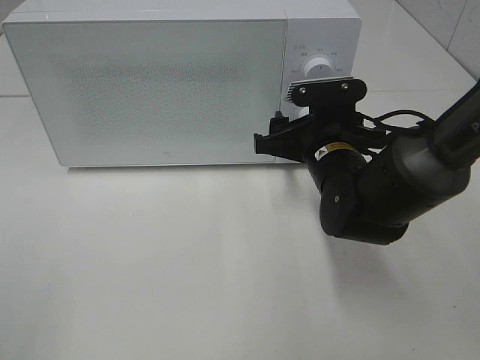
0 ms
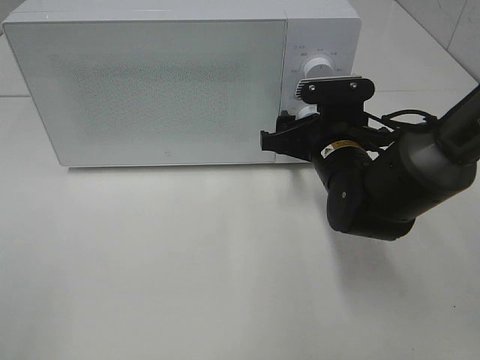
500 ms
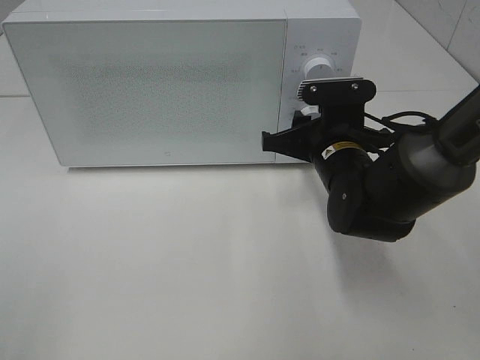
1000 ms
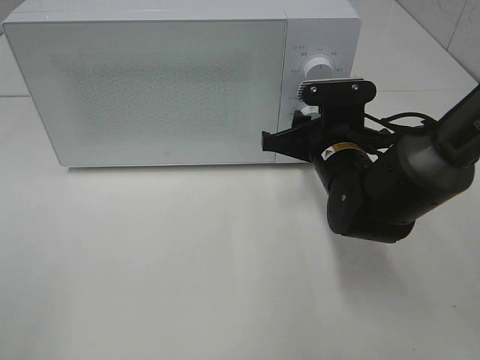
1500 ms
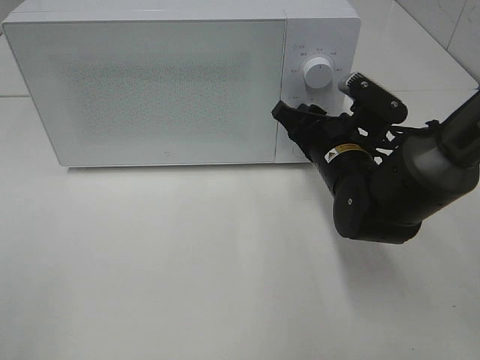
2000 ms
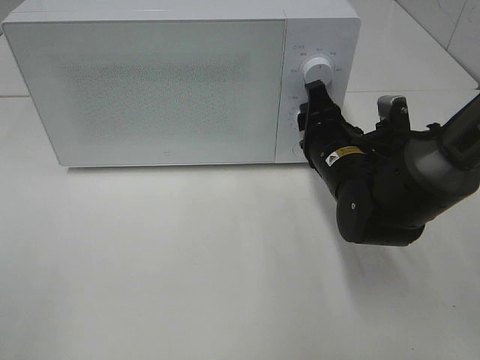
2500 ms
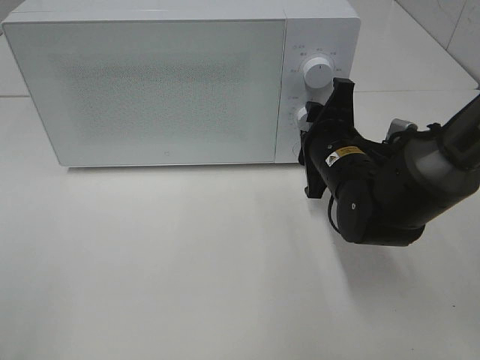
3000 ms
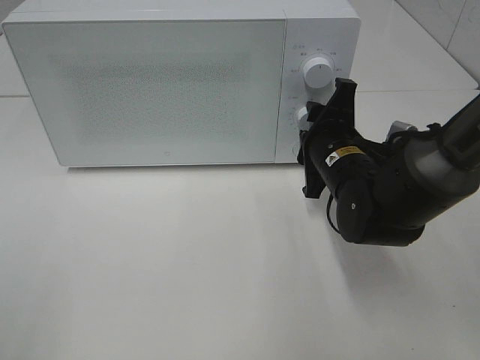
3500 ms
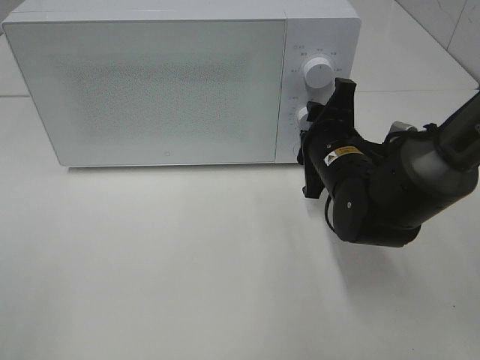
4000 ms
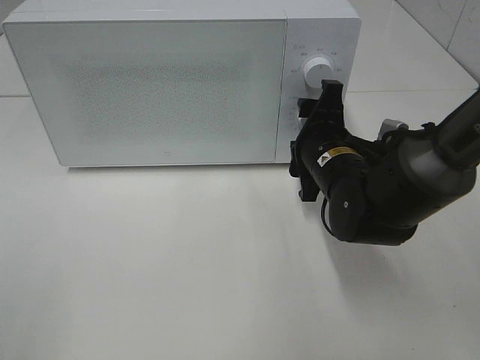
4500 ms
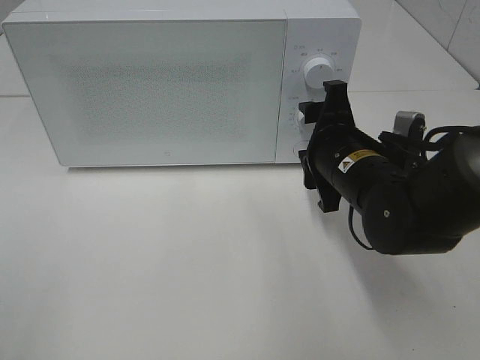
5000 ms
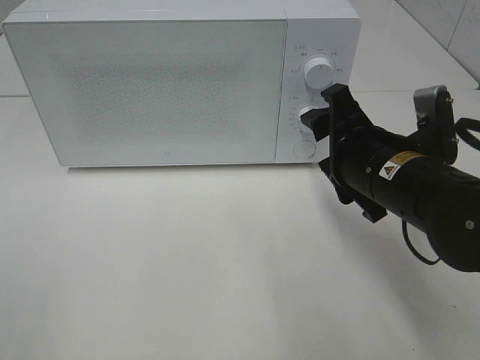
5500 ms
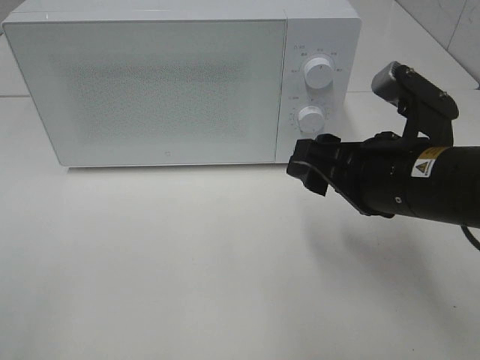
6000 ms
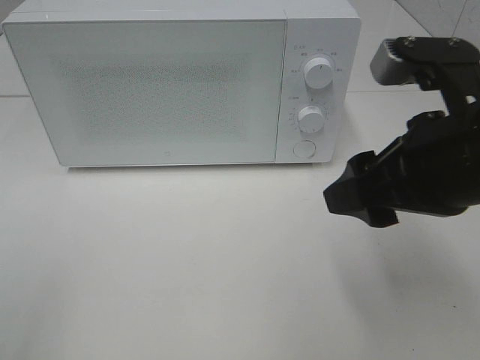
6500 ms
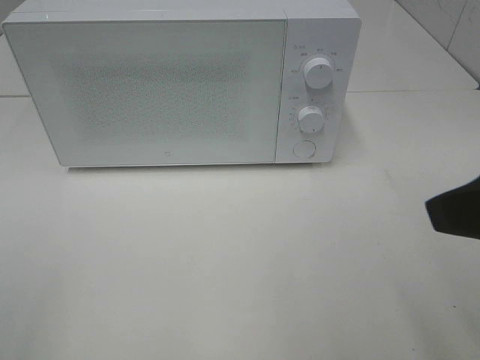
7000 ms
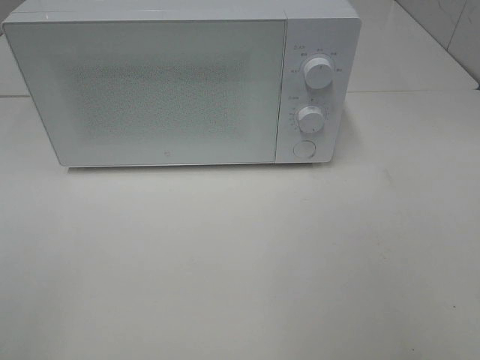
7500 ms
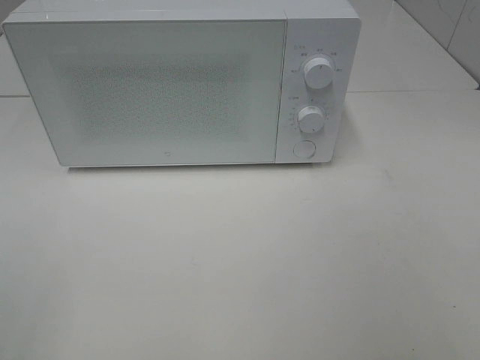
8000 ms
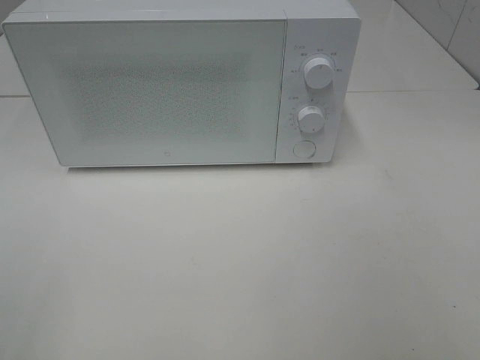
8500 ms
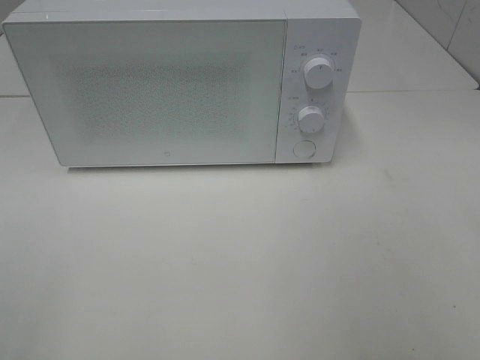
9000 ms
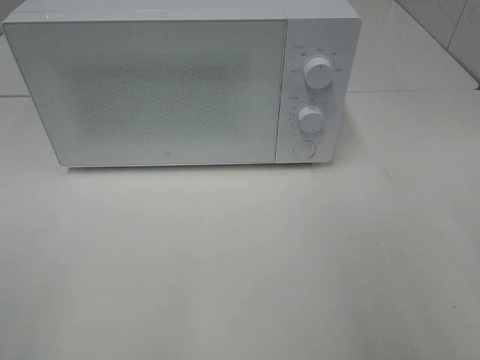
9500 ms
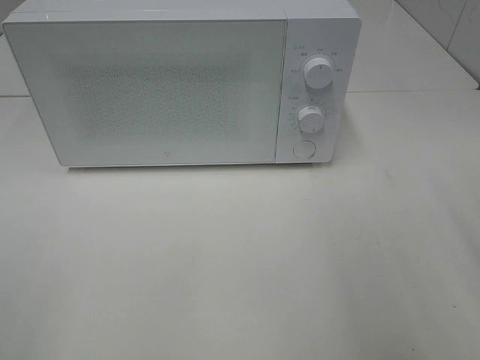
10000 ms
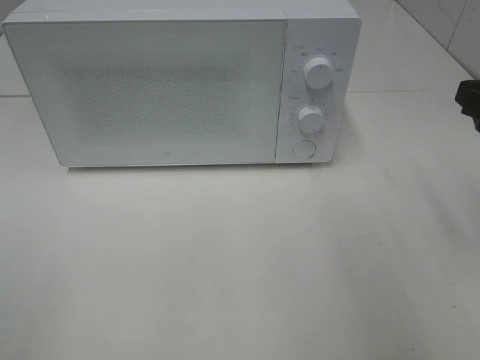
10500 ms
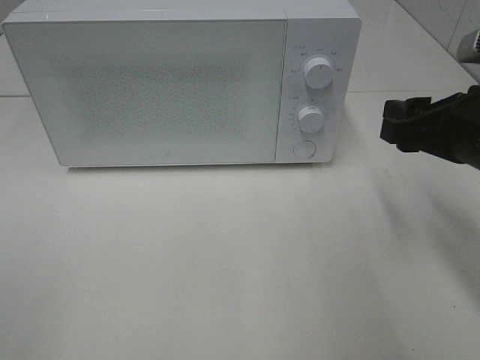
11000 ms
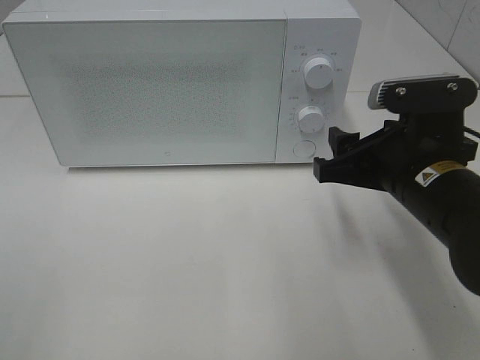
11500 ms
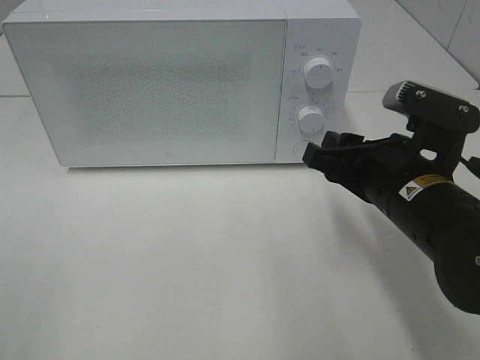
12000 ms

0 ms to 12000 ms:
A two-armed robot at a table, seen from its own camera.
Task of the whole recording: Heat the burger.
Step, 0 ms to 4000 ms: Right hand: twist timer button.
0 ms to 2000 ms: The right gripper closes.
4000 ms to 6000 ms: The right gripper travels backward and upward by roughly 15 cm.
6000 ms to 8000 ms: The right gripper is displaced backward, to the right and upward by some 25 cm.
10000 ms to 12000 ms: The right gripper goes about 20 cm to the left, downward and forward.

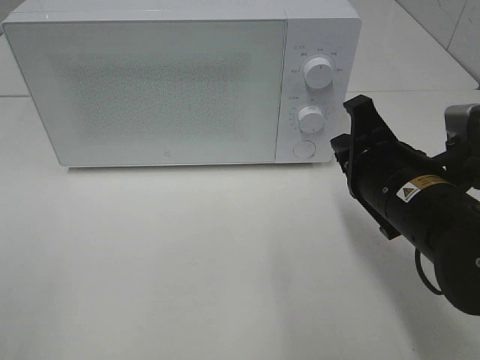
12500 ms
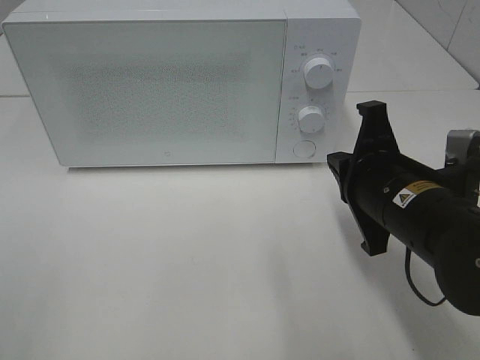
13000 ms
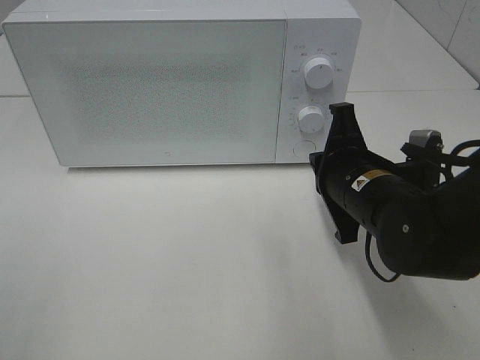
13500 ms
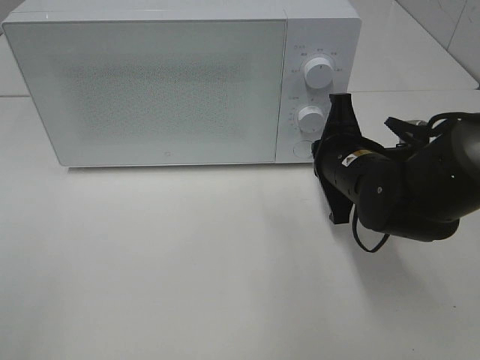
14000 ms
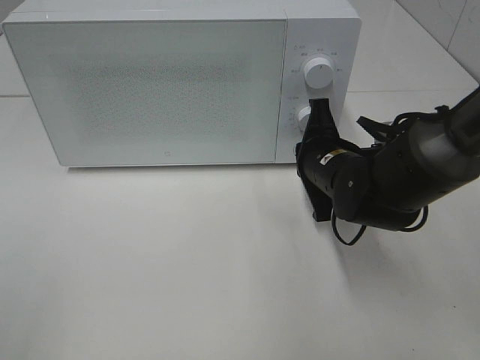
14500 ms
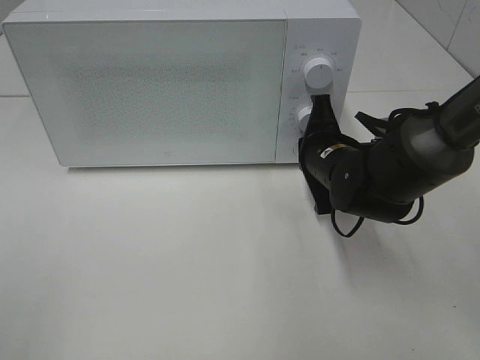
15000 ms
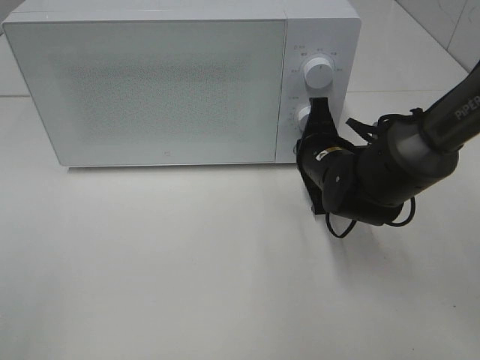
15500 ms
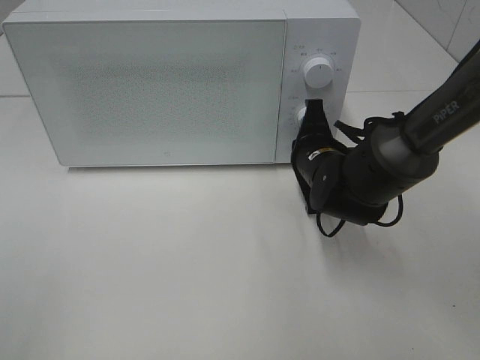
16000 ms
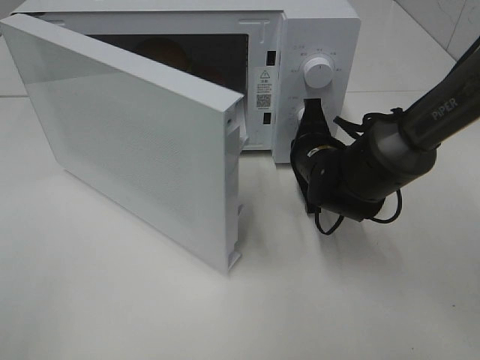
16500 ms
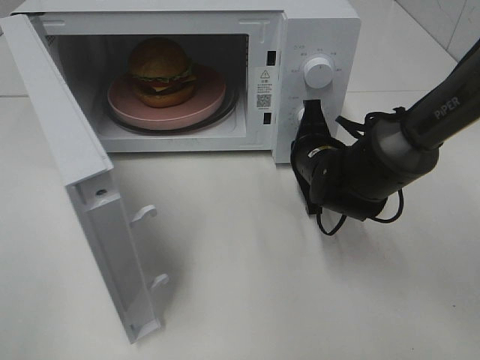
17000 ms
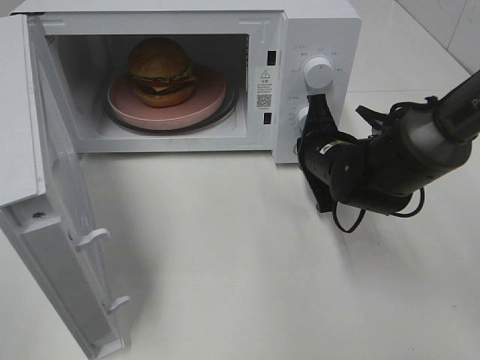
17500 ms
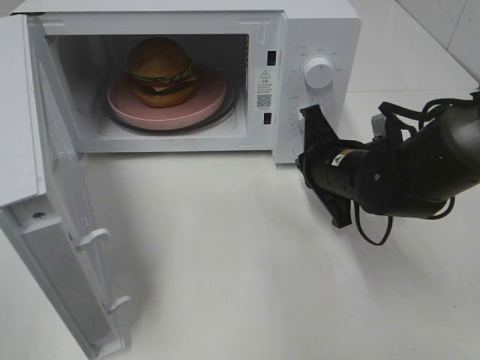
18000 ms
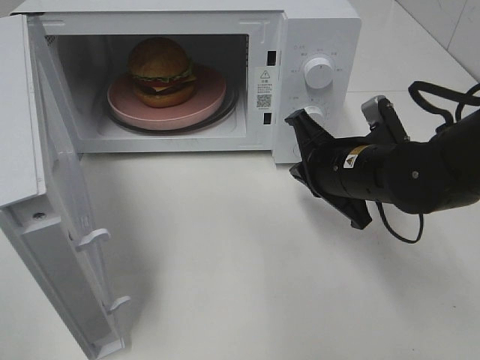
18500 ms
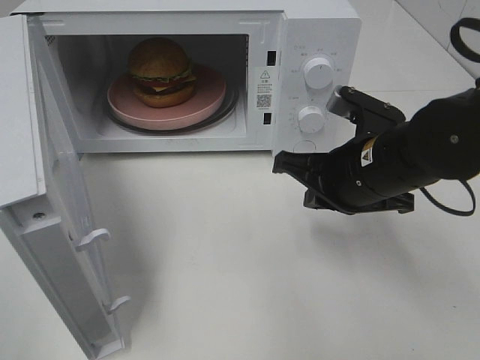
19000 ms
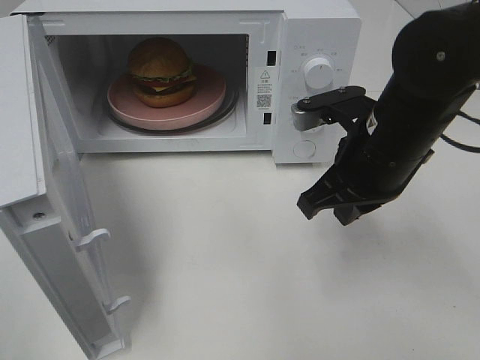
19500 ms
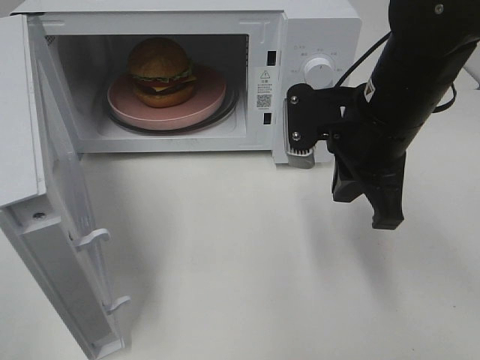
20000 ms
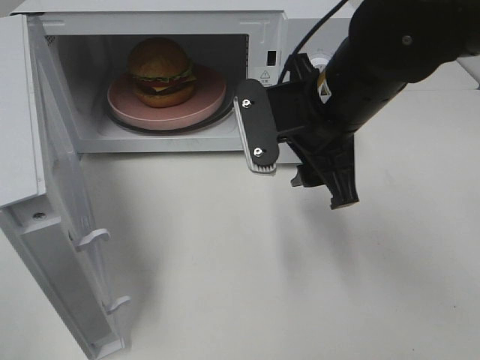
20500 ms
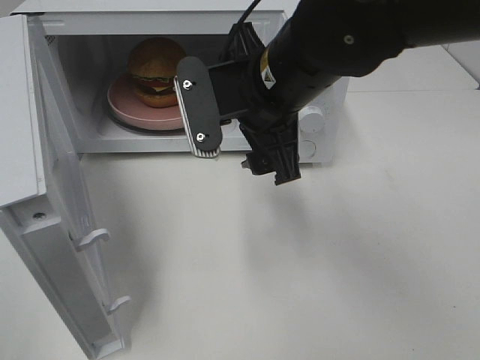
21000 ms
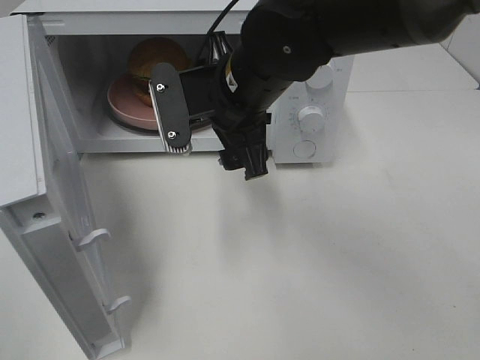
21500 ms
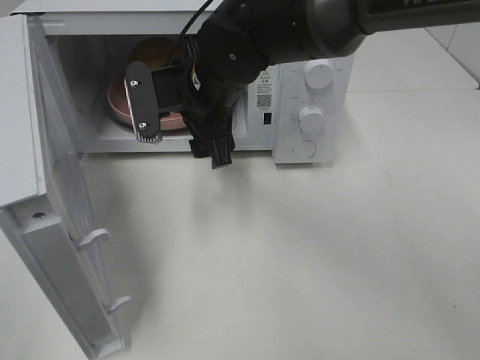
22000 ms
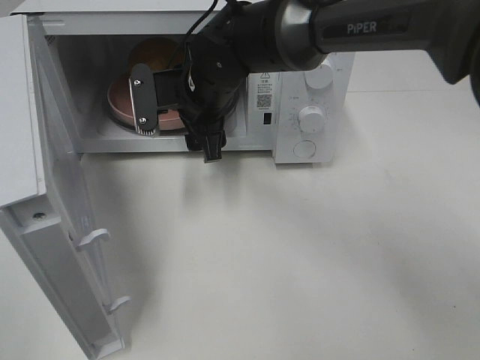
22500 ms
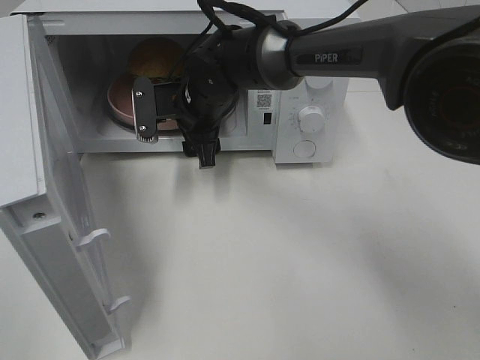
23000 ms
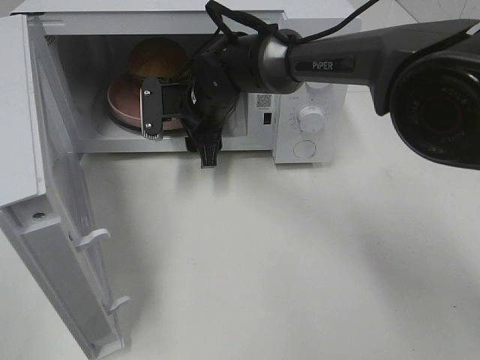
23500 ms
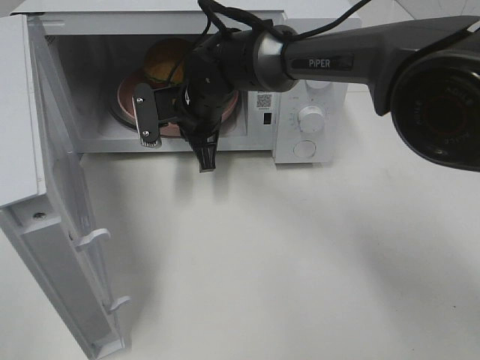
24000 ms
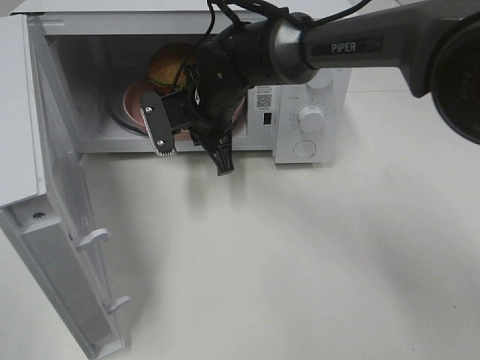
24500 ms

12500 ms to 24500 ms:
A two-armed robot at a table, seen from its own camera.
Task of the whole recording: Heat the burger.
Step, 12500 ms to 17500 ms: Right hand: press the switch.
Step, 18000 ms to 23500 ms: Right hand: grab the plate with the hamburger.
12500 ms to 14500 ms: The right gripper moves forward and downward, about 10 cm.
16500 ms to 18500 ms: The right gripper goes approximately 5 cm backward.
18500 ms to 20500 ms: The right gripper heads upward, covering some 10 cm, and opens.
20500 ms to 22500 ms: The right gripper goes approximately 20 cm to the left, forward and downward.
22500 ms to 24500 ms: The right gripper closes.

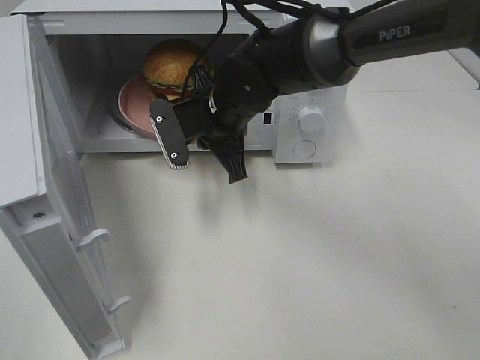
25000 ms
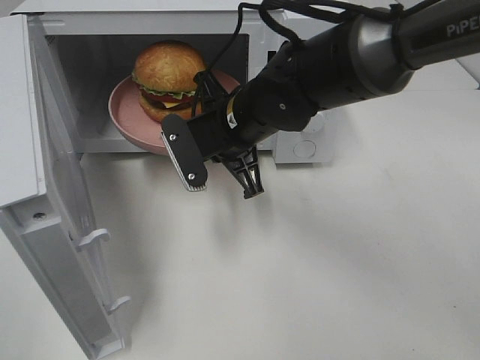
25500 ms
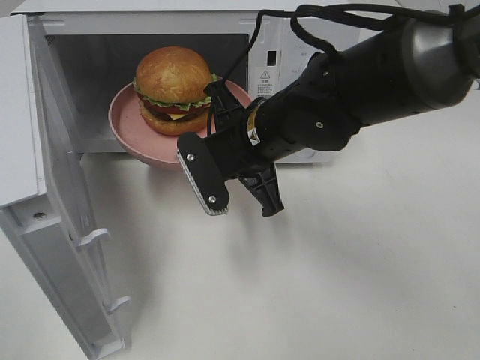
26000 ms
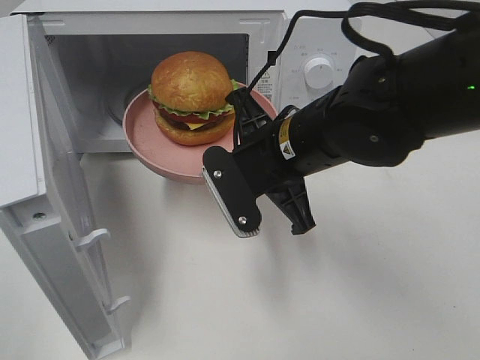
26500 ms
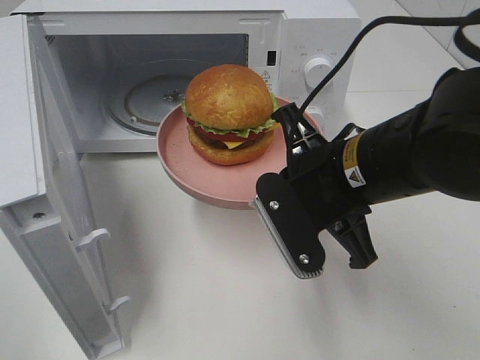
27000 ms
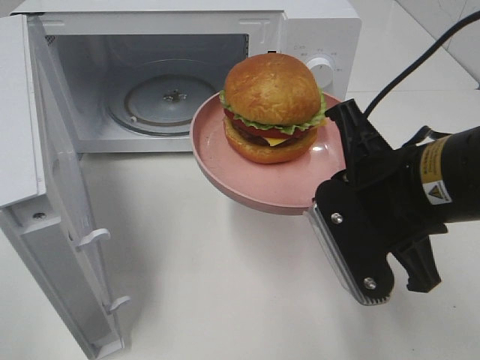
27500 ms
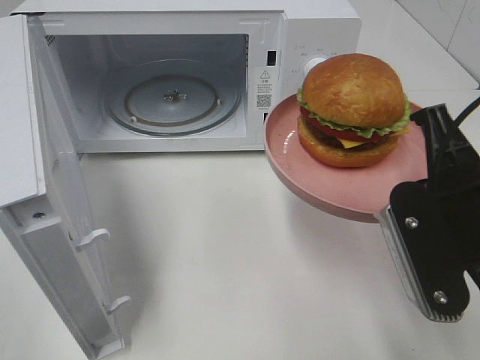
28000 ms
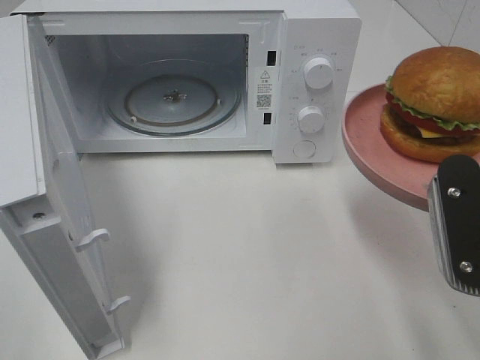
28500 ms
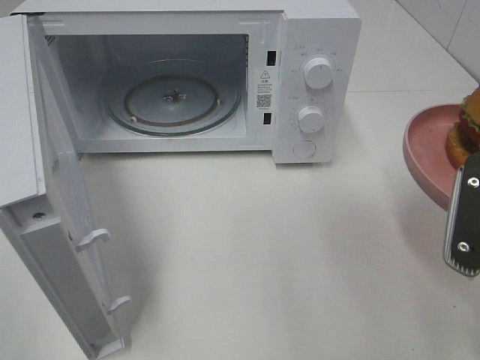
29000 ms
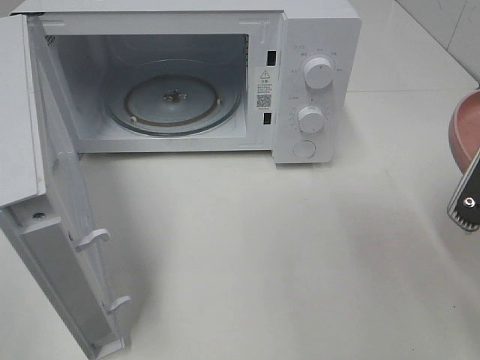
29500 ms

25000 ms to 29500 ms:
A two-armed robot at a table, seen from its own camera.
Task of the whole recording: Heat the burger.
25000 ms to 27000 ms: The right gripper shifts some 20 cm backward and to the right.
27000 ms to 29500 ms: The right gripper shifts roughly 15 cm to the right and backward.
